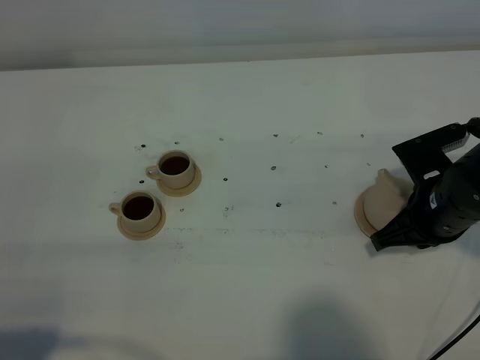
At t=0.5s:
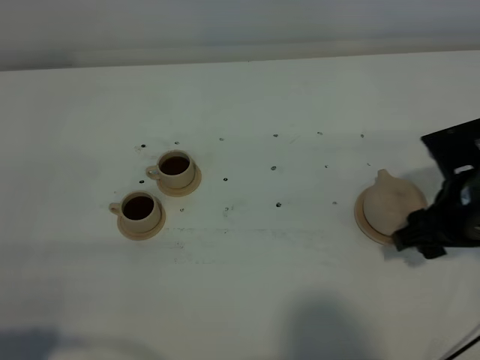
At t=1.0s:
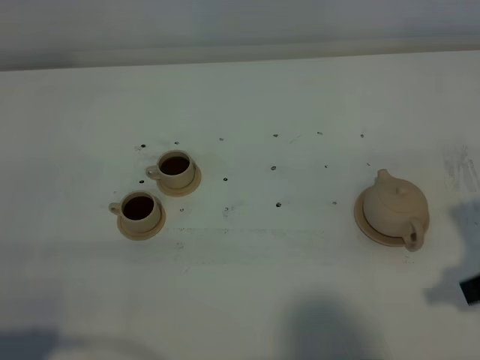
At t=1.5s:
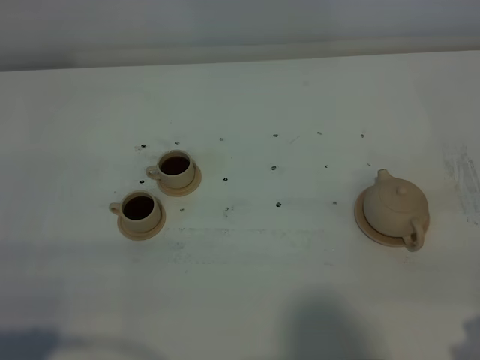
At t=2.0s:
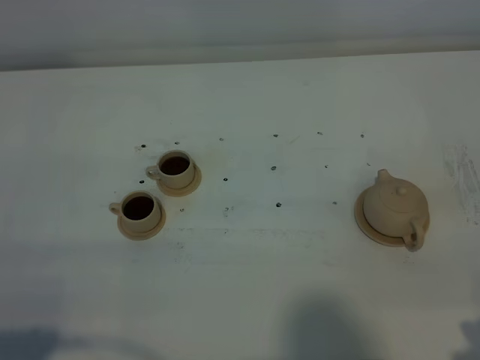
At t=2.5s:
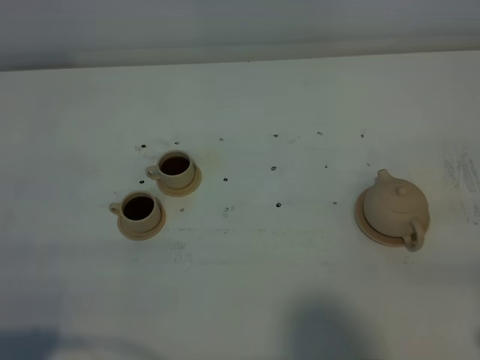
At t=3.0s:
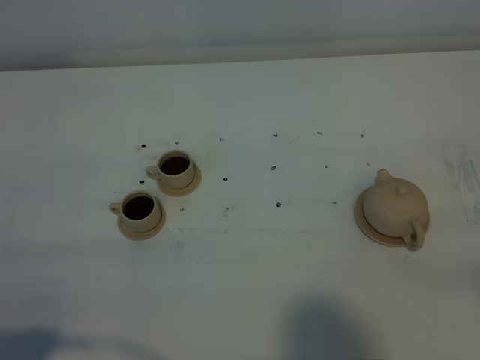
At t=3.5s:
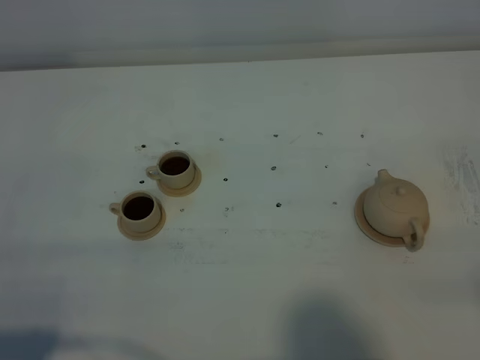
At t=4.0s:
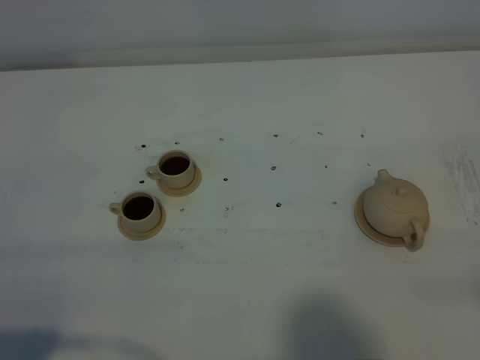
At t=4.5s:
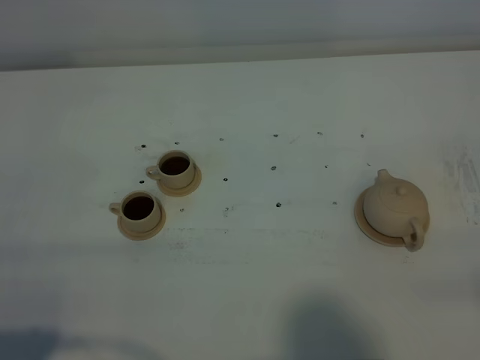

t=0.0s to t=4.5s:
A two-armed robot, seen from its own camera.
Task of the whole recording: grasp the brown teapot and pour the tea into the two brown teacups one by one, put the brown teapot back in its original place.
t=0.0s to t=2.0s: The right gripper travels backward and upward by about 20 cm, and opens.
